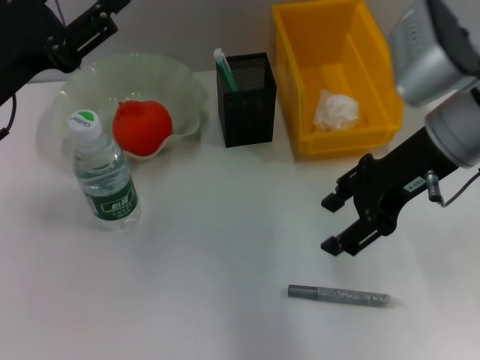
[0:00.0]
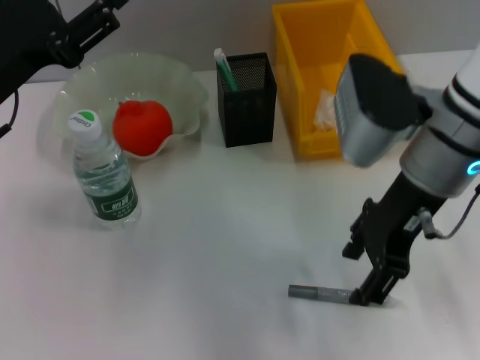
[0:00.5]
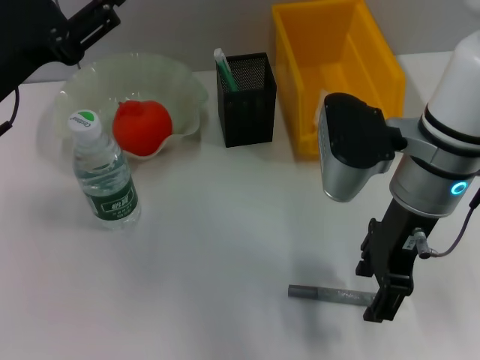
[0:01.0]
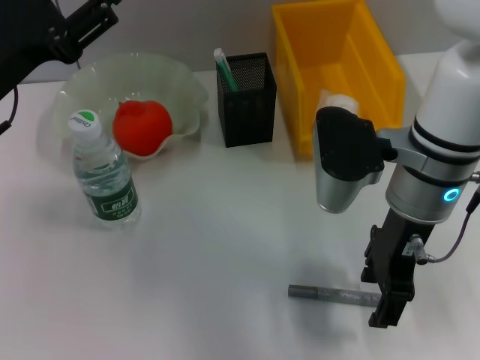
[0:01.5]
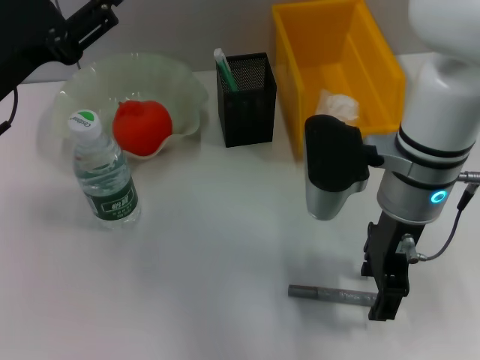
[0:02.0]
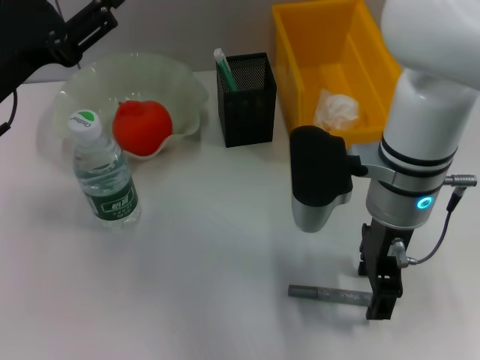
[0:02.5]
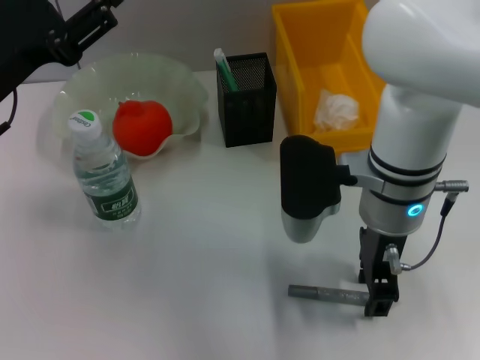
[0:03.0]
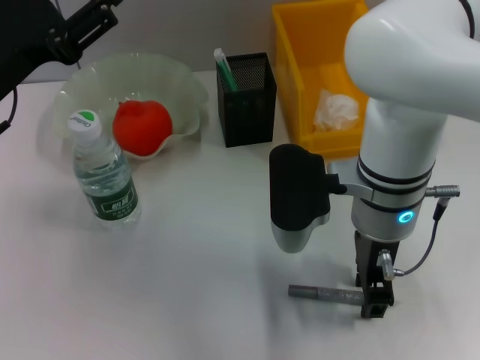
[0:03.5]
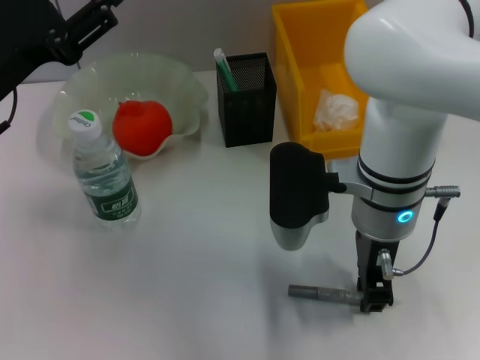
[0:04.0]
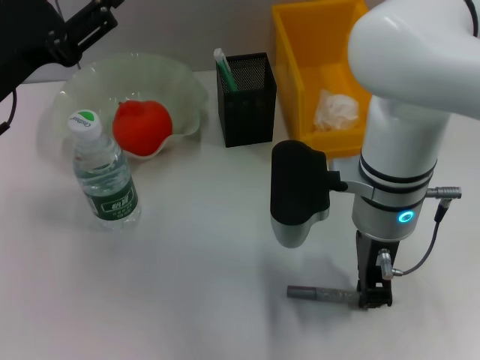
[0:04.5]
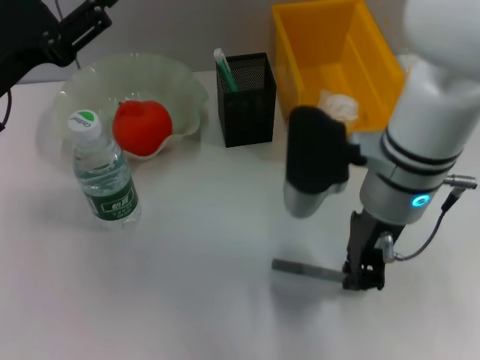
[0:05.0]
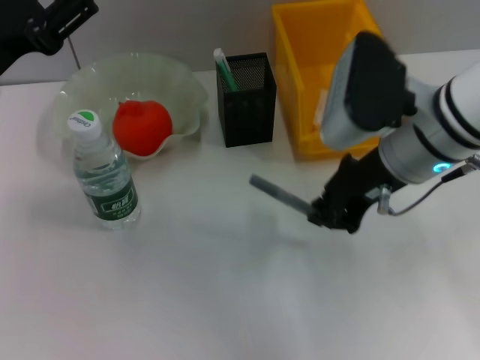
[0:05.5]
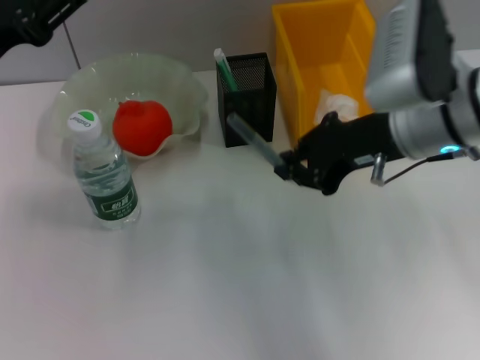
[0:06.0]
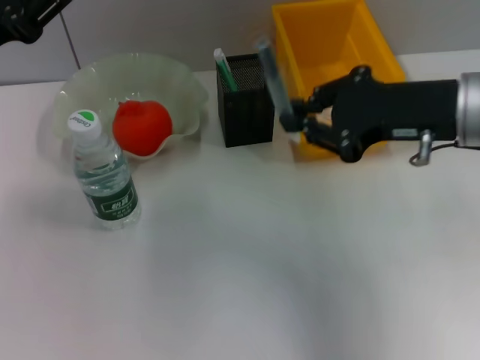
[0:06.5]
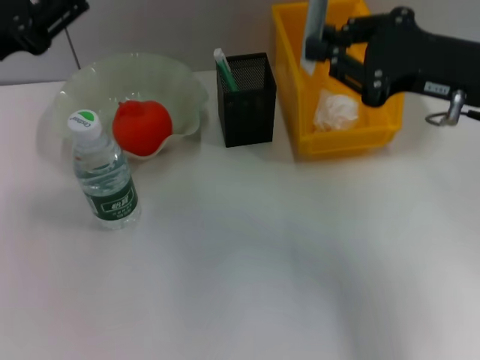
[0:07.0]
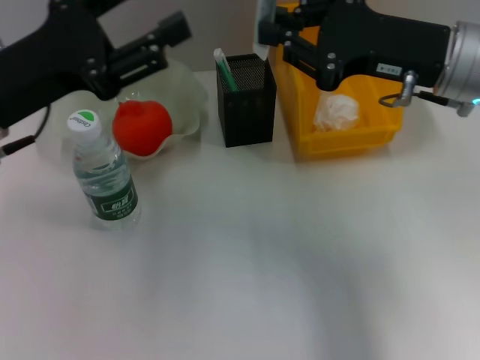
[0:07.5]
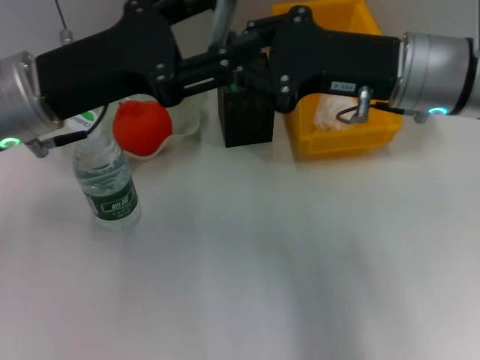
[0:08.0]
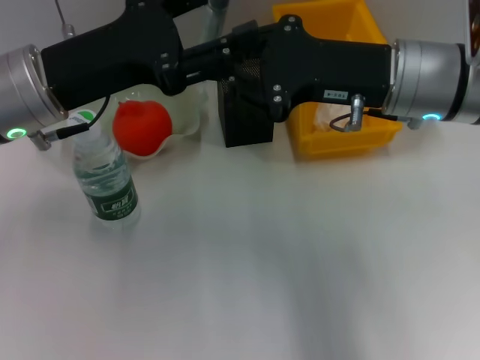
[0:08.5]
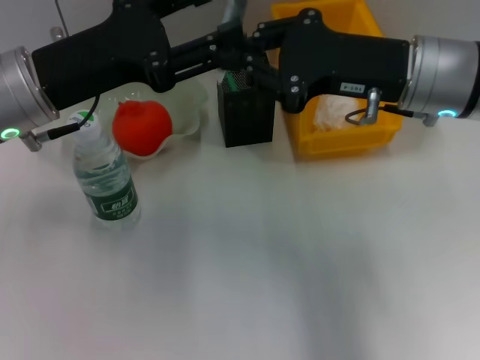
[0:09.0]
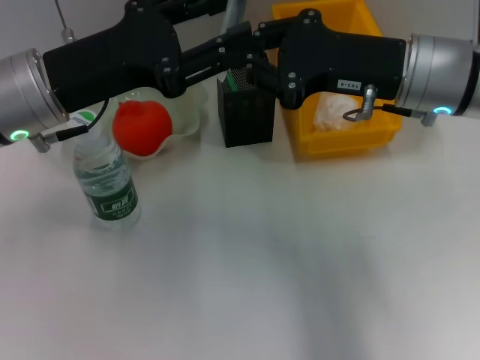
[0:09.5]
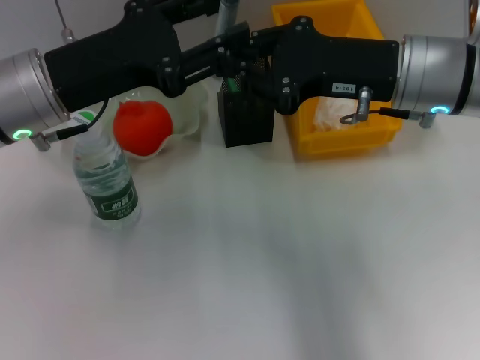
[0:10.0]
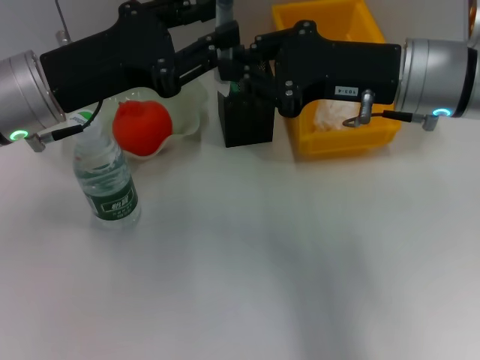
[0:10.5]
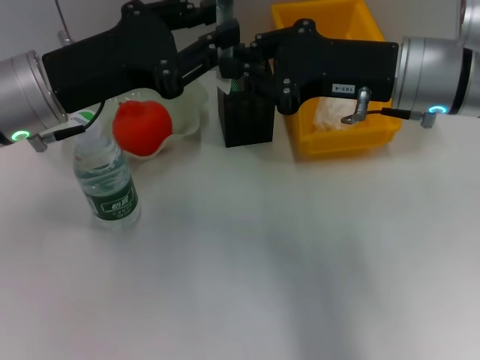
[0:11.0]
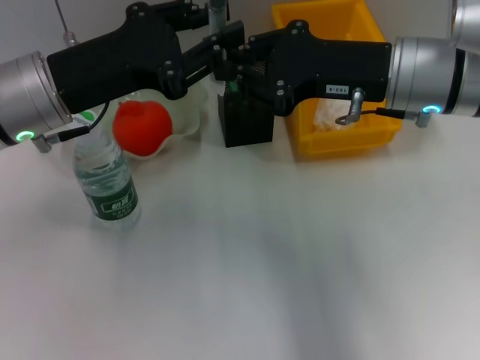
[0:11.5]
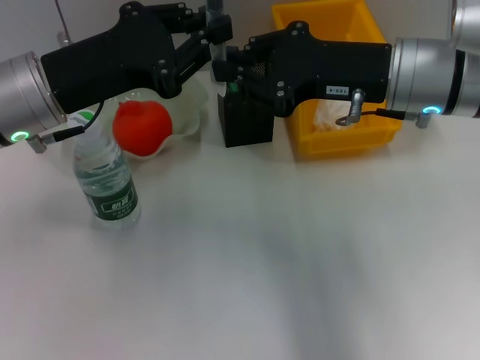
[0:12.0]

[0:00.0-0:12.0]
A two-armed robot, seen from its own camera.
Step, 0:00.0 to 0:04.0: Grab the gray glue with the right hand.
0:00.0 to 0:02.0: The right gripper moves to the left and downward, about 10 cm.
0:02.0 to 0:04.0: The right gripper closes its fingers.
0:04.0 to 0:06.0: The right gripper is displaced to the right and upward by approximately 10 cm.
0:06.0 to 0:08.0: The left gripper shifts approximately 5 cm to the right.
0:08.0 to 0:10.0: There are only small adjustments of the grippers.
0:10.0 to 0:12.0: The left gripper closes up.

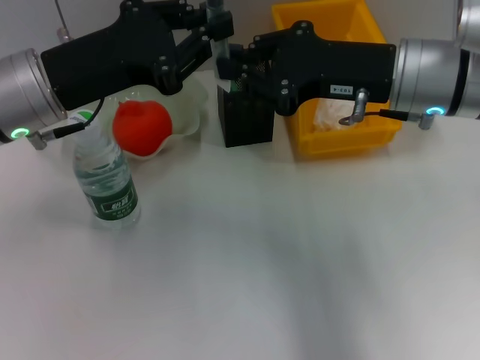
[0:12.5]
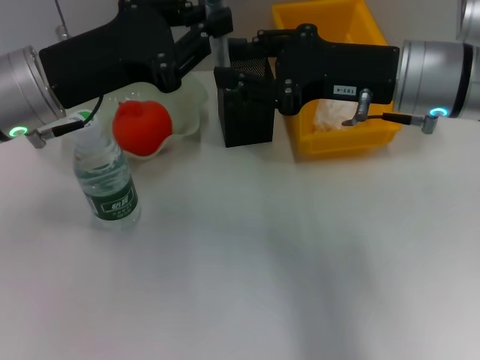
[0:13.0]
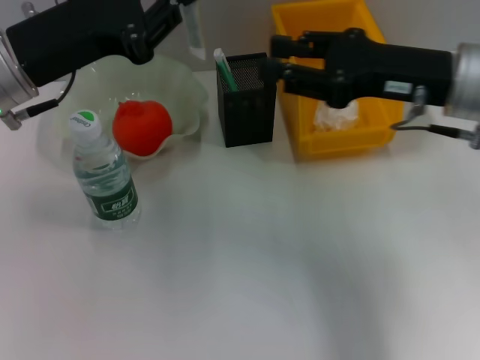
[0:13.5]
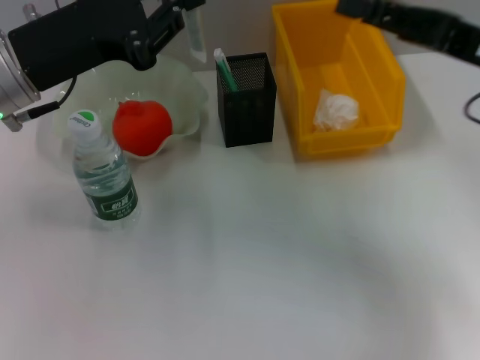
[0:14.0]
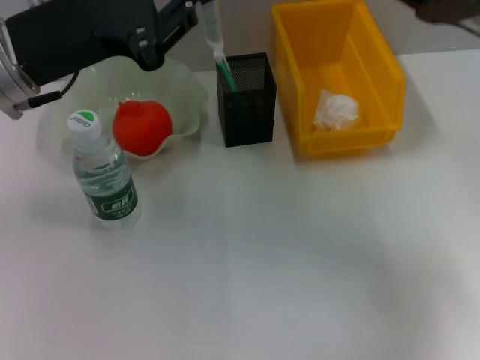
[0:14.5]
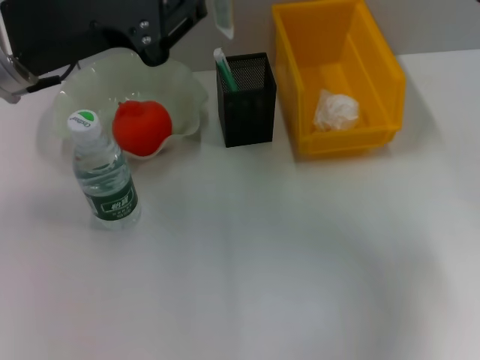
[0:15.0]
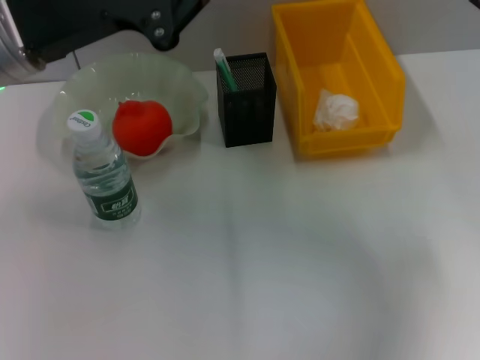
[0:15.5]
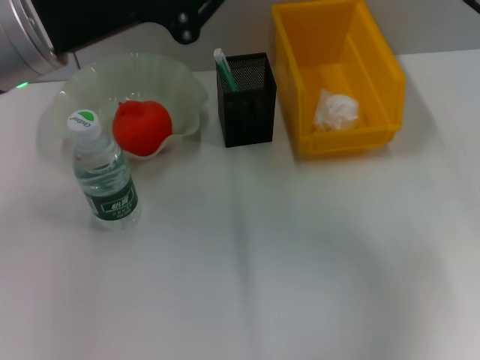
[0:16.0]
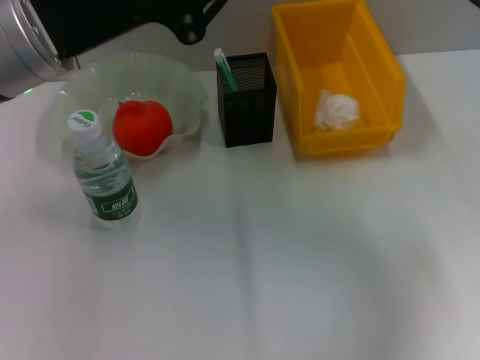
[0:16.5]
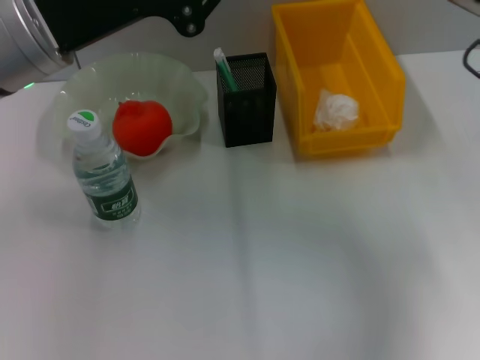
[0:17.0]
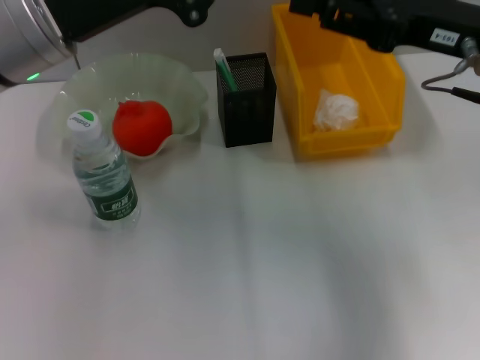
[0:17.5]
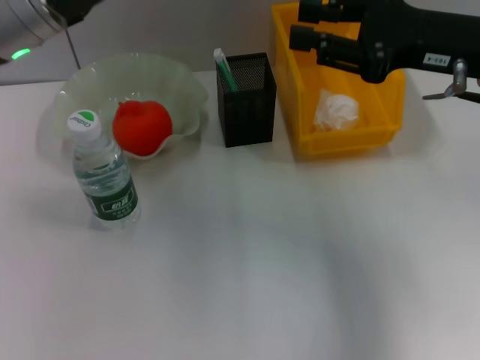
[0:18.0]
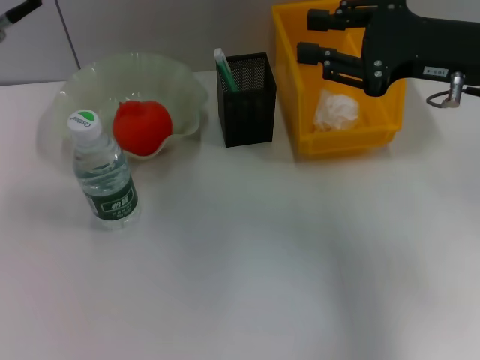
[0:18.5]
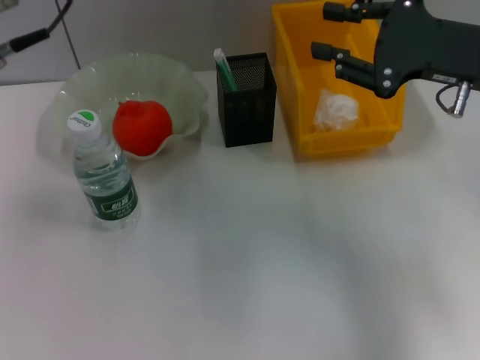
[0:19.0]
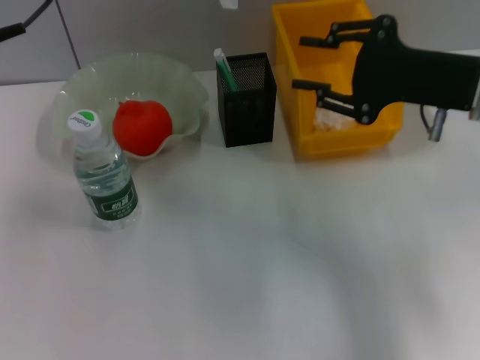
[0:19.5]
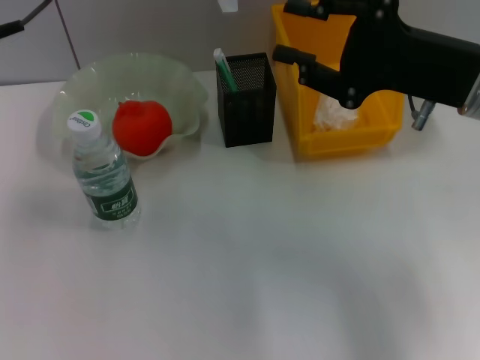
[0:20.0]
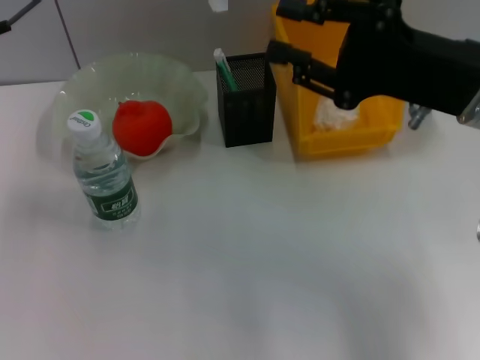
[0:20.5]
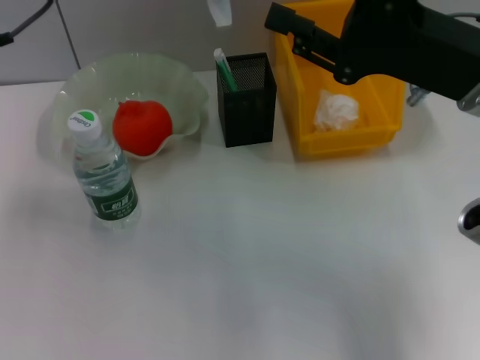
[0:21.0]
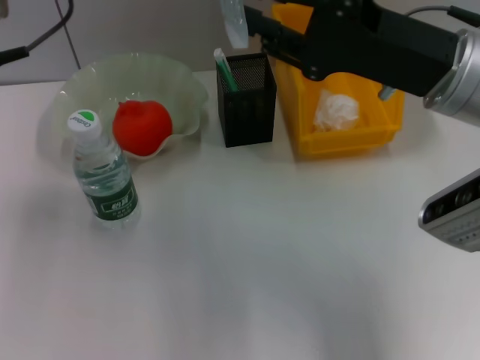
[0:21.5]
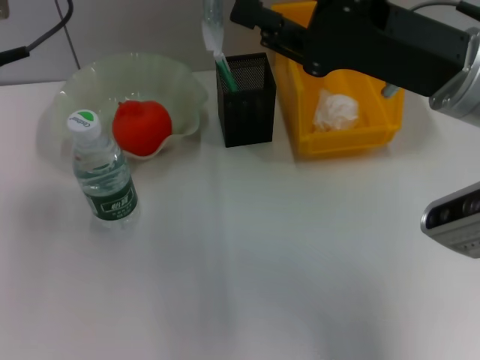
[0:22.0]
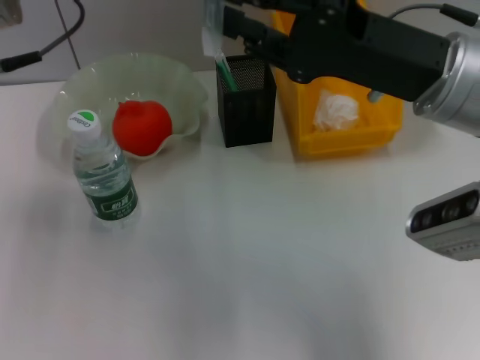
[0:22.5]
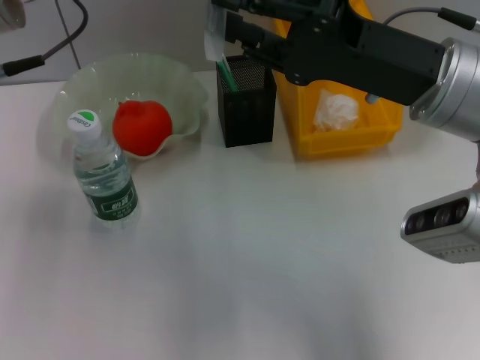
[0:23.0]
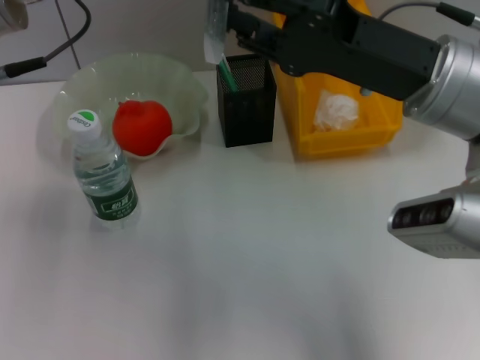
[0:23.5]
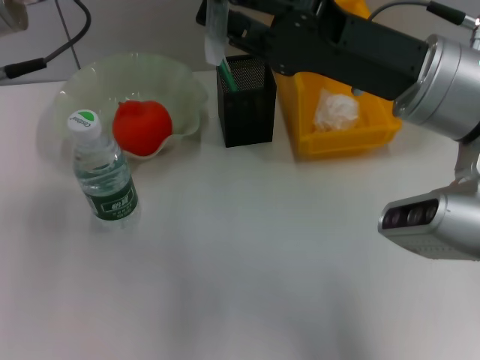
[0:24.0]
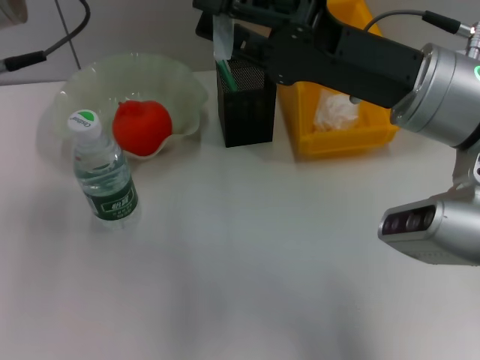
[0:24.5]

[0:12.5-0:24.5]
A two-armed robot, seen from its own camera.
0:12.5 to 0:14.5: The right gripper moves to the right, about 10 cm, and opens.
0:16.5 to 0:18.5: The left gripper ends up some 5 cm from where it was.
0:18.5 to 0:20.5: The right gripper moves about 5 cm.
0:22.5 to 0:24.5: The grippers stay close to where they were, moving slightly.

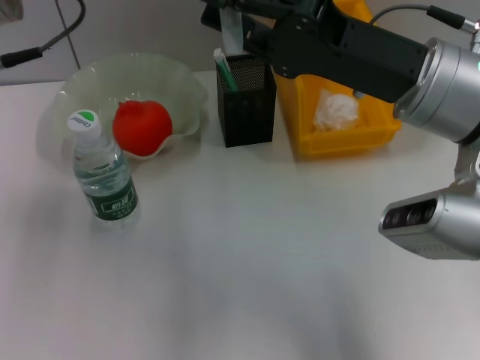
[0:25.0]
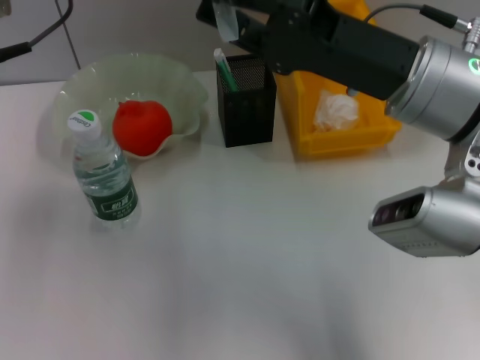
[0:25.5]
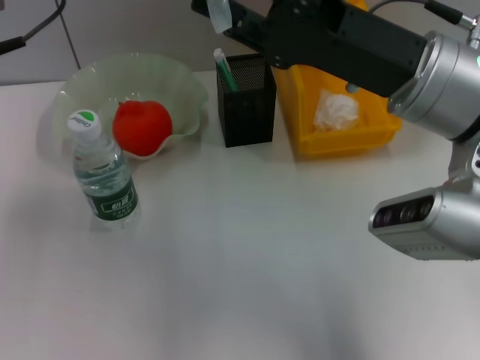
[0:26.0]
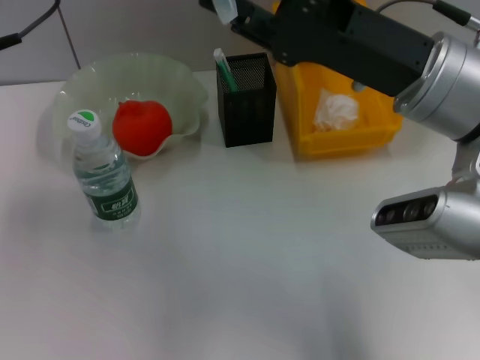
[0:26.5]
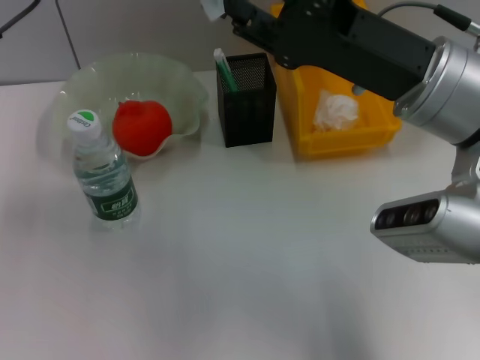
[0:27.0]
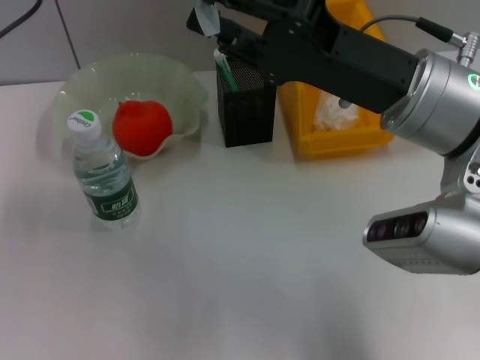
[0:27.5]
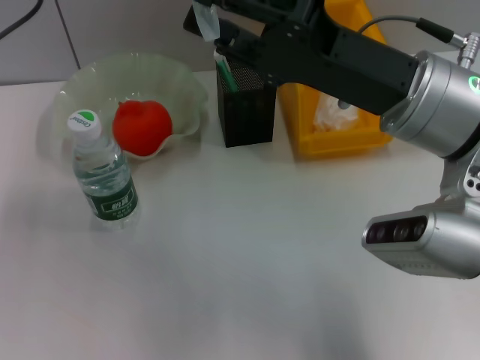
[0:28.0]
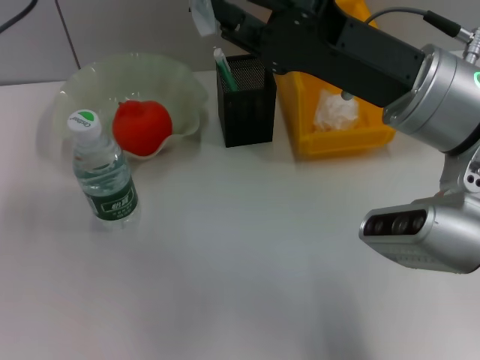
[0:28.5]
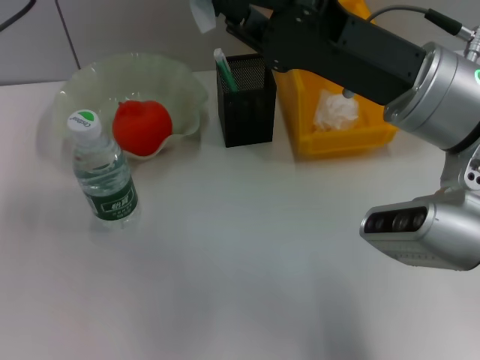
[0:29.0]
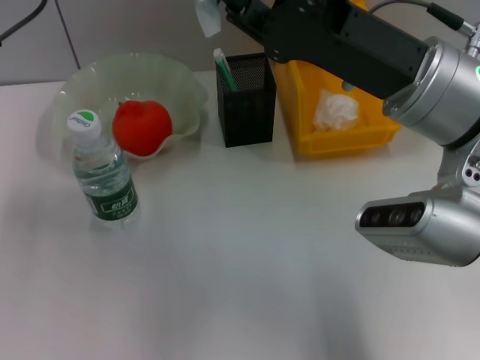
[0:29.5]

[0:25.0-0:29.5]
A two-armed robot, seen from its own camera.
0:25.0 to 0:27.0: The grippers move only a little.
0:27.0 to 0:29.5: Both grippers stay about where they are.
